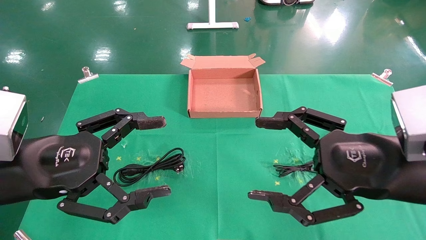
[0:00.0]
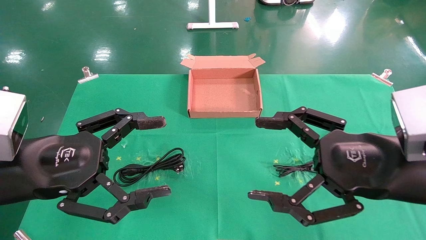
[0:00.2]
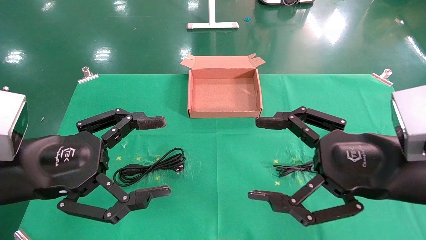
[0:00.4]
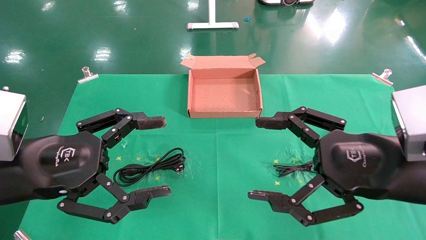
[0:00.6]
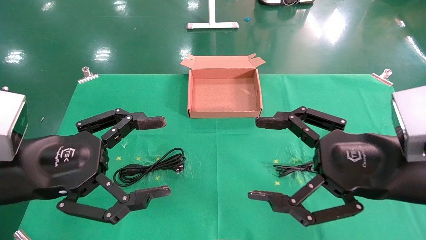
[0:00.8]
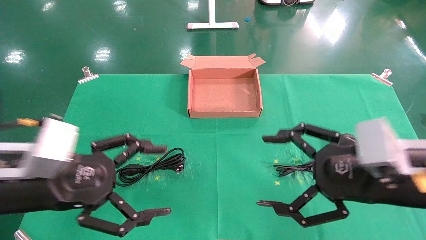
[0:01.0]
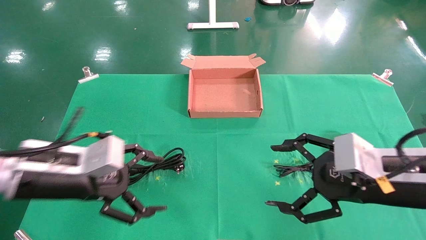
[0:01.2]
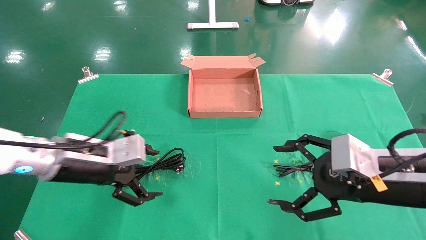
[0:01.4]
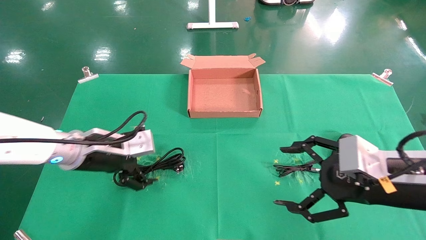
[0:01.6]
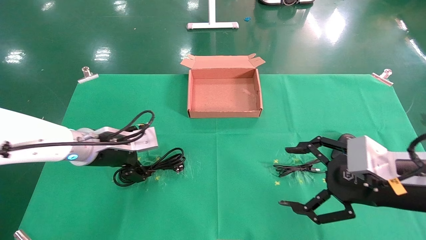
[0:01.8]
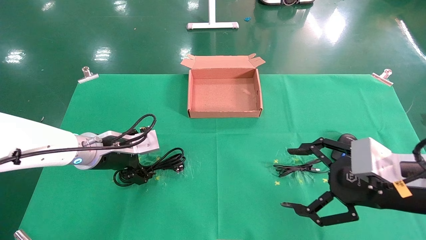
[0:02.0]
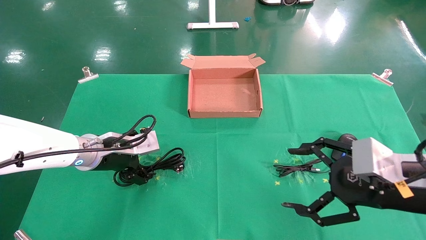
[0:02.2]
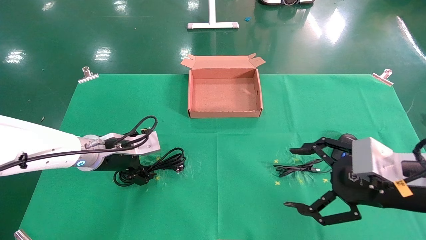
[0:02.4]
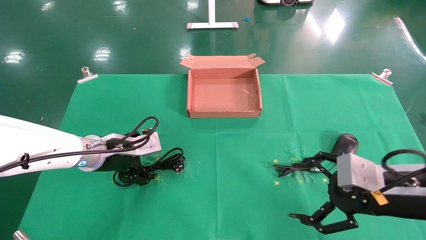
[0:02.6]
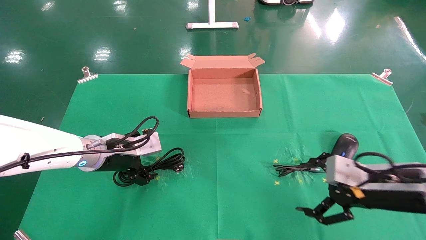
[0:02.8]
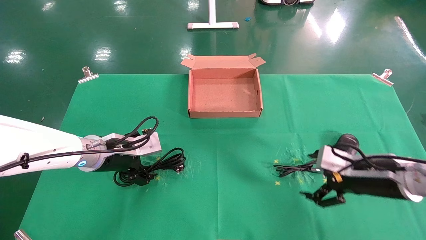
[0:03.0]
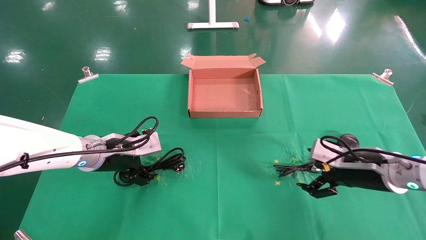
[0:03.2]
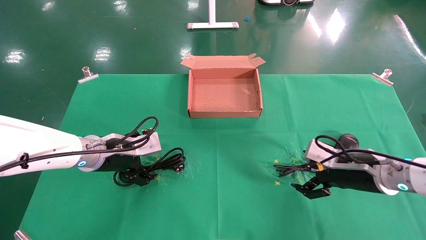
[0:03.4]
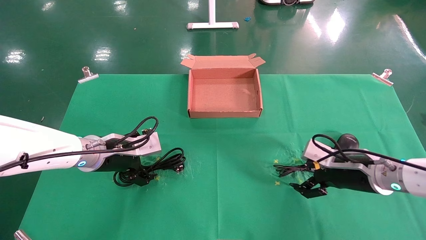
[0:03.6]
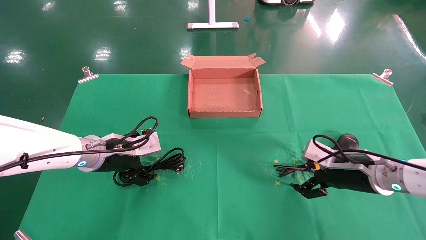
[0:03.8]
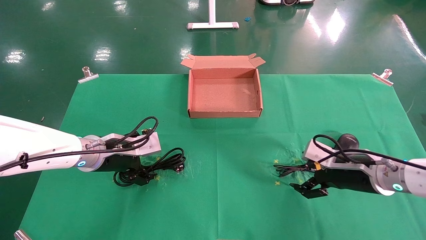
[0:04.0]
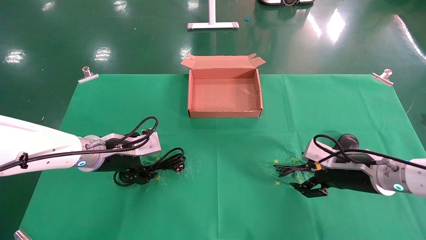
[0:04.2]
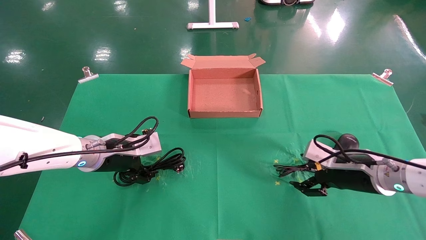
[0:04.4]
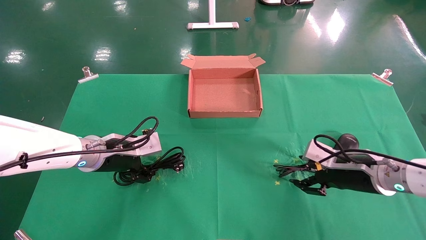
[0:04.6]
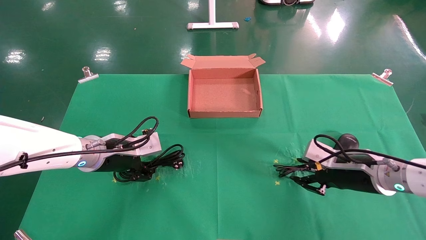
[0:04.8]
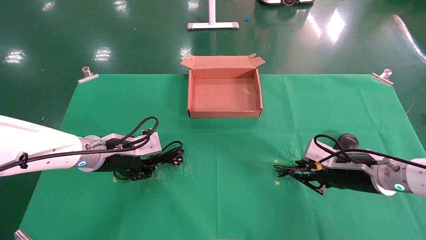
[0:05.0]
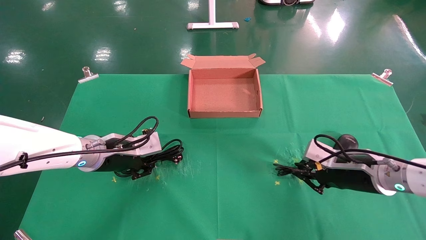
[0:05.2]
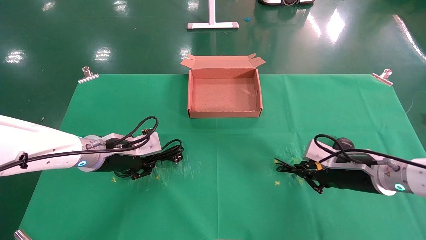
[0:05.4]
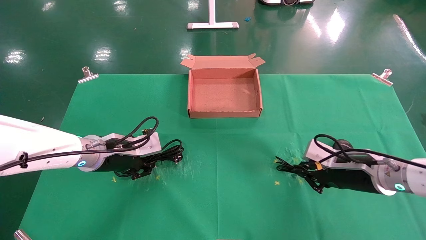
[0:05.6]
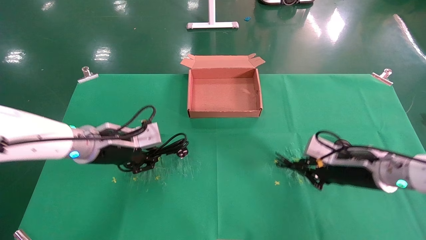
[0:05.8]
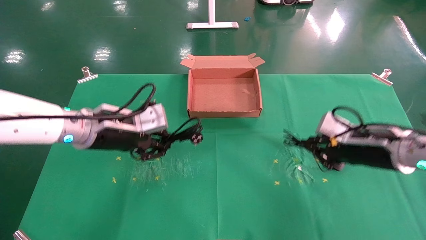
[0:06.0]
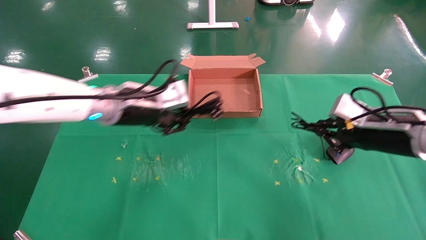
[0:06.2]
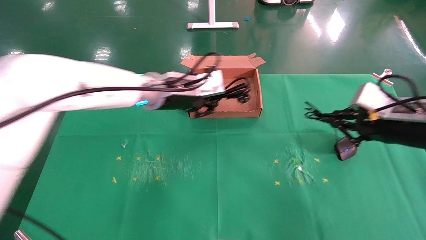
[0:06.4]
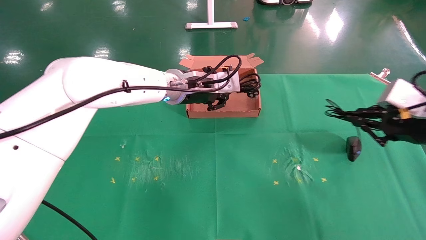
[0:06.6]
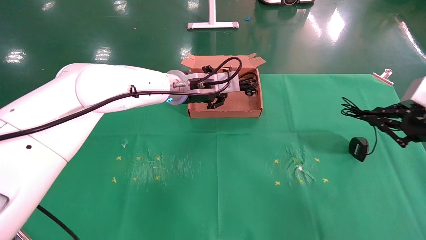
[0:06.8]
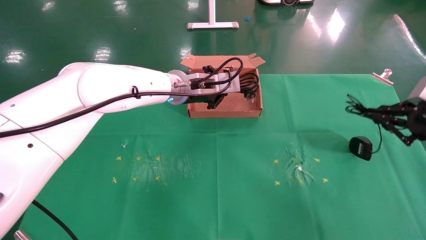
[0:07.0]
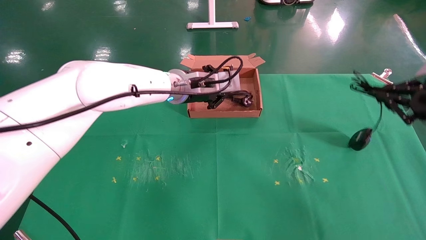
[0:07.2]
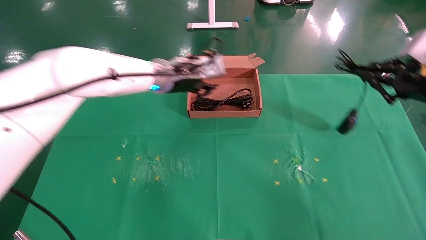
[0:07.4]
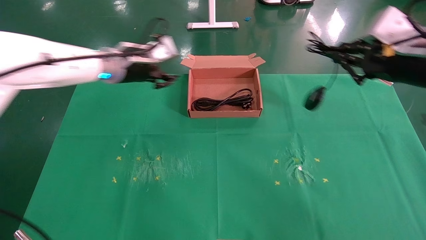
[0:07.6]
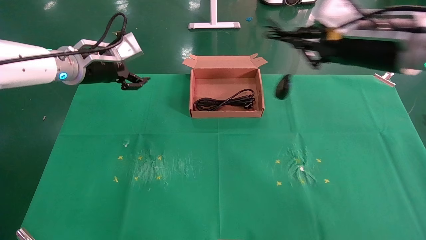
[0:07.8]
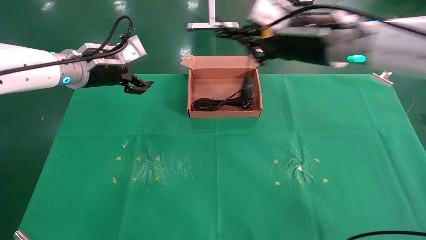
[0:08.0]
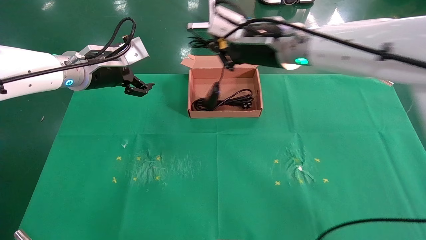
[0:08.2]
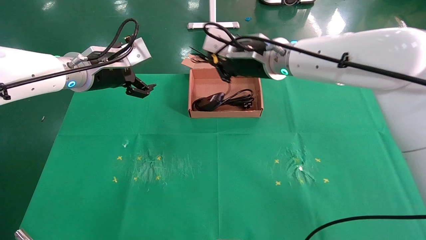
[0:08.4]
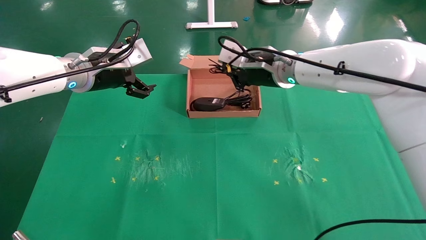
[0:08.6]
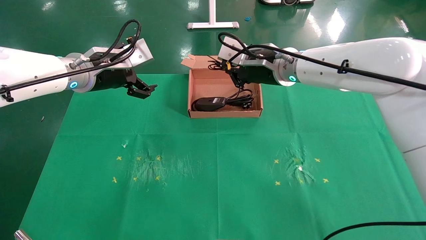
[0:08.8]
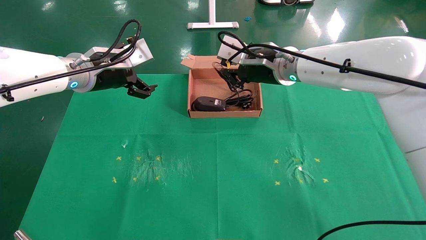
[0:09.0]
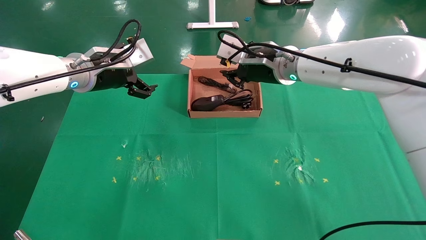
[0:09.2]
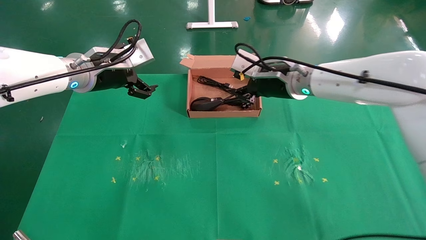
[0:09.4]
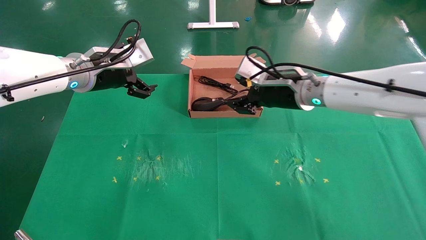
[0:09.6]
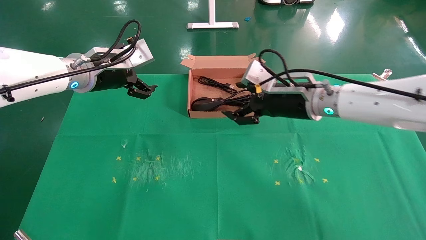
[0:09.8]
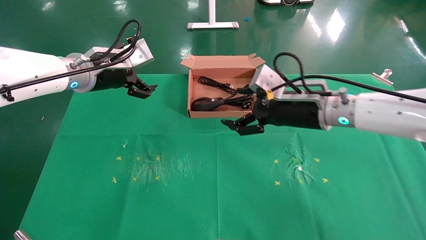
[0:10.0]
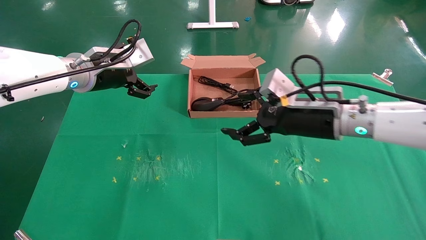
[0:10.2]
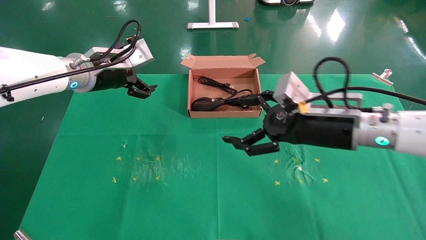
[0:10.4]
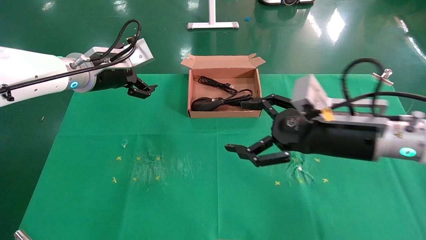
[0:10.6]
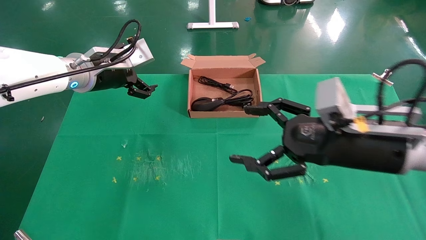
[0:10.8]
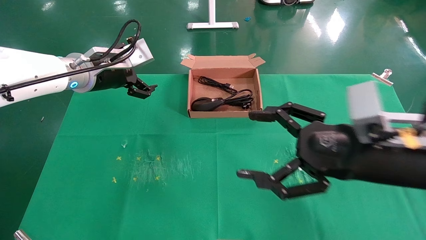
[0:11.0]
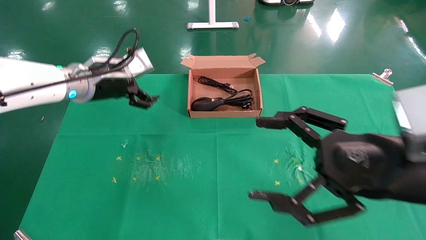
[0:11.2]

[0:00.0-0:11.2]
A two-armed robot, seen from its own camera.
Task of the whole recording: grasp data cable left put into box grasp mouse right put into box.
Step, 0:01.2 to 0:05.6: Simultaneously pick up the mouse and power cord from the accessory packaging area.
Step, 0:05.8 to 0:09.2: Place the mouse and power cord into the box.
0:00.0 to 0:01.6: The right gripper ends up roughly 5 cm from where it was. The left gripper moves forward and downward, some 15 cm.
0:01.6 to 0:03.2: The right gripper goes some 10 cm forward and downward.
0:03.2 to 0:04.8: The right gripper closes. Meanwhile the left gripper closes up.
0:04.8 to 0:06.4: The right gripper heads upward and to the right, covering about 10 cm, and closes up. Meanwhile the left gripper goes some 20 cm to the right, upward and forward, and closes up.
0:06.4 to 0:08.0: The right gripper goes approximately 20 cm to the left and upward. The left gripper heads to the left, covering some 15 cm, and opens its fingers.
0:08.0 to 0:09.6: The right gripper shifts about 10 cm downward, and opens its fingers.
0:09.6 to 0:11.2: The right gripper is displaced backward and to the right by some 25 cm, and opens.

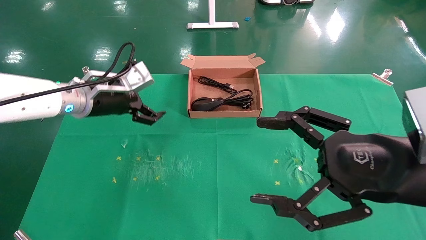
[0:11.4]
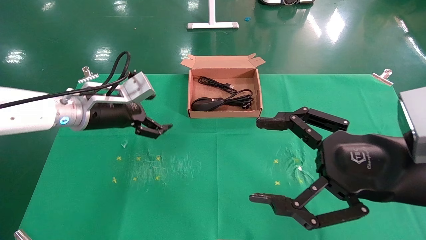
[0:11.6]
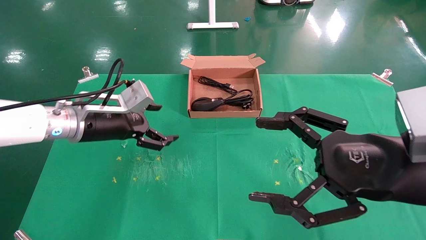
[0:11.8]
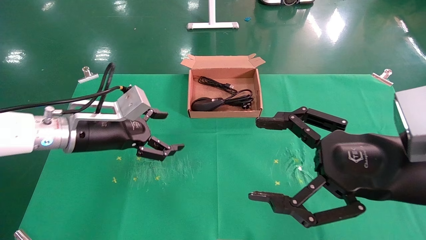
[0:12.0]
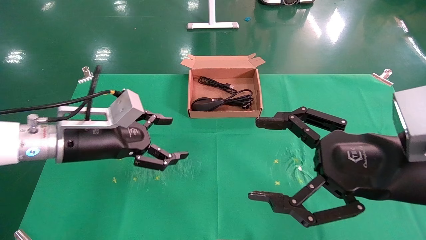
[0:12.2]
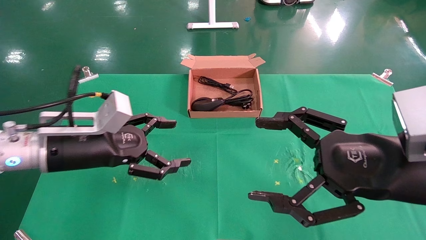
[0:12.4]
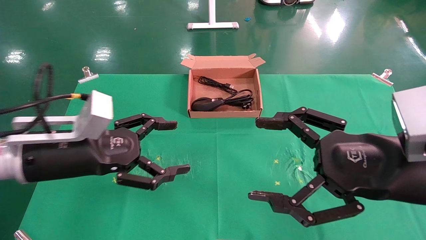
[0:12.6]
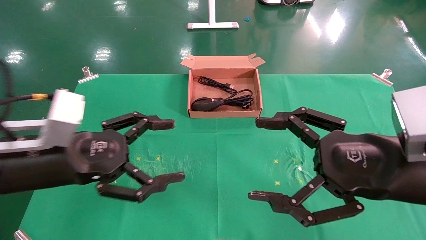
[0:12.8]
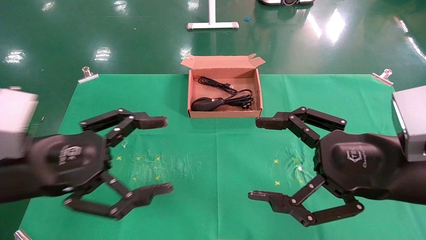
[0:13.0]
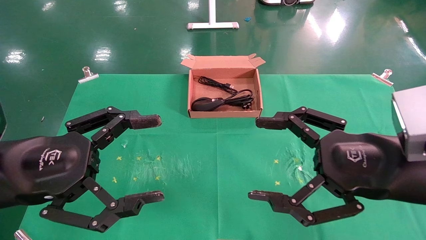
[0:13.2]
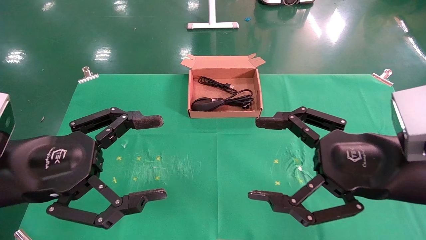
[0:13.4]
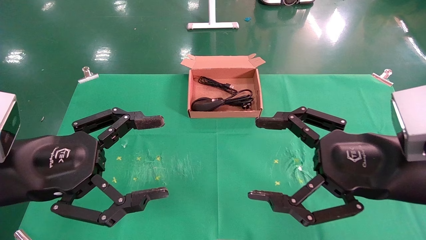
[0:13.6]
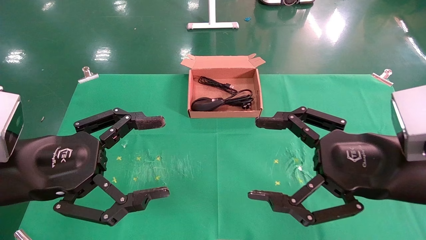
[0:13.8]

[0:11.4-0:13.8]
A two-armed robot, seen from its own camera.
Task of the whole recording: grasp data cable left put into box grasp mouse right put into box.
0:11.4 to 0:12.6: The left gripper goes approximately 15 cm backward.
0:12.6 to 0:13.8: The left gripper is displaced backward by about 5 cm.
